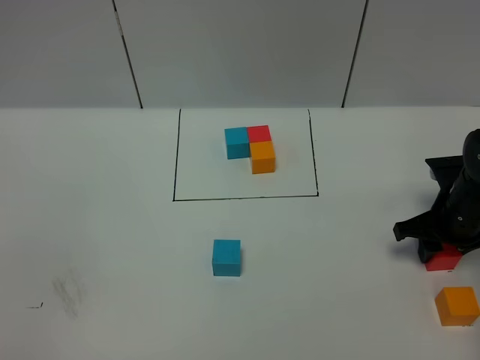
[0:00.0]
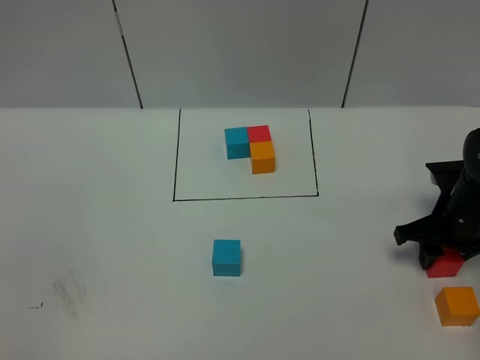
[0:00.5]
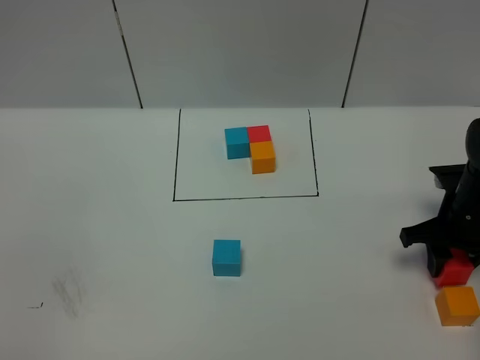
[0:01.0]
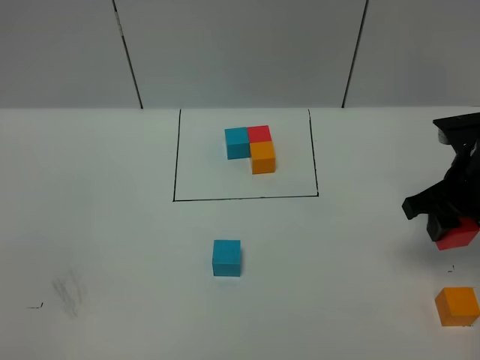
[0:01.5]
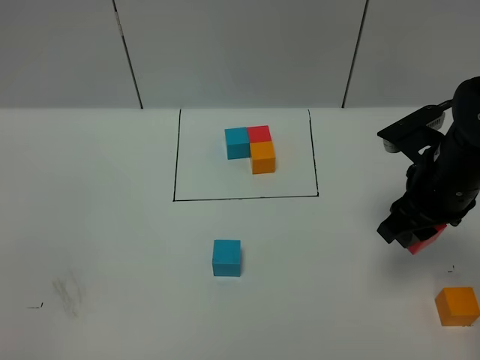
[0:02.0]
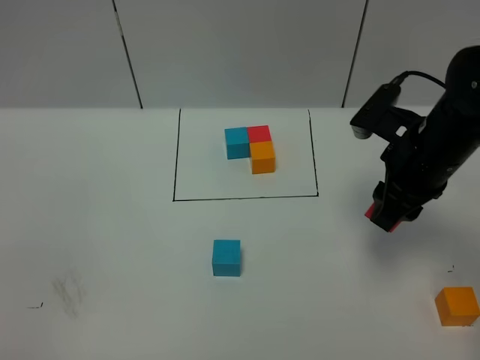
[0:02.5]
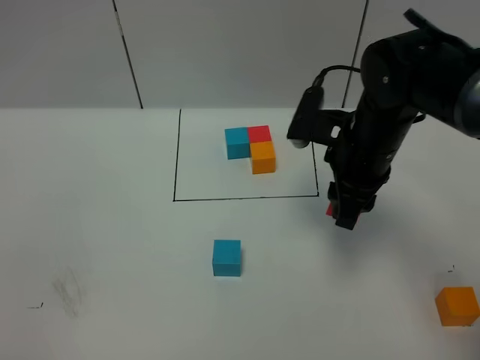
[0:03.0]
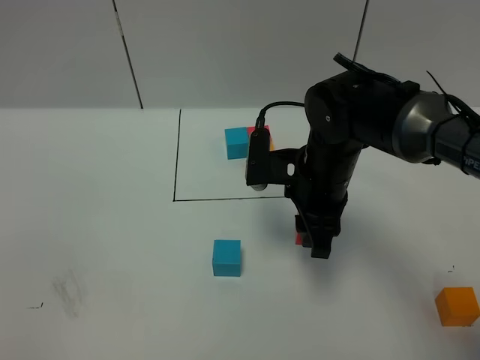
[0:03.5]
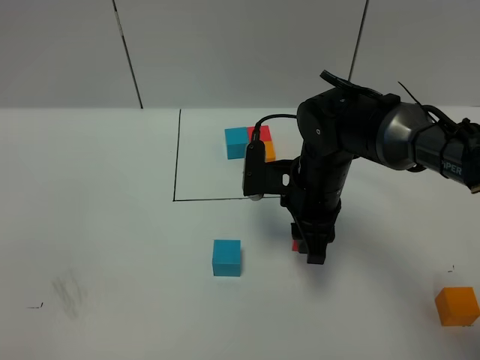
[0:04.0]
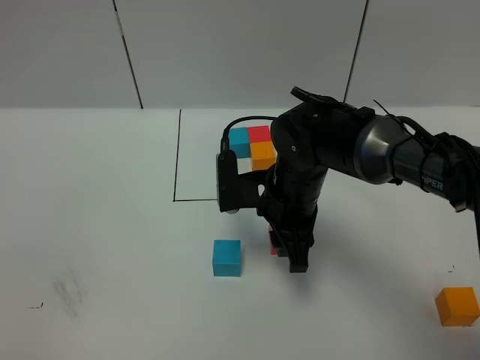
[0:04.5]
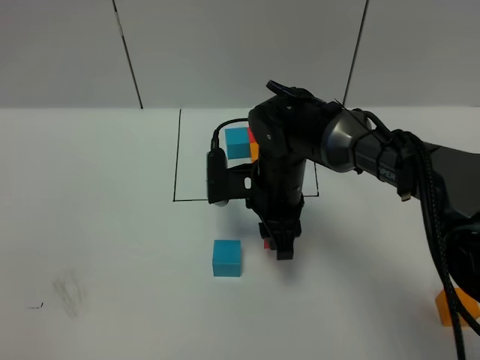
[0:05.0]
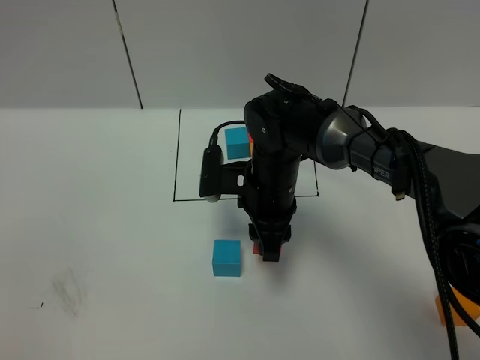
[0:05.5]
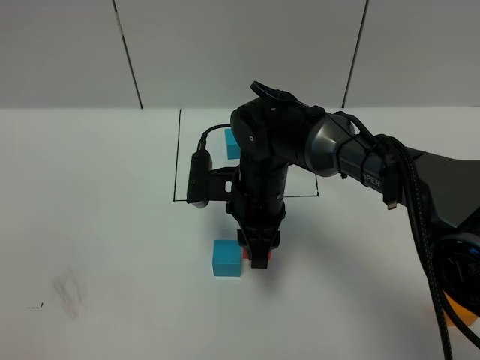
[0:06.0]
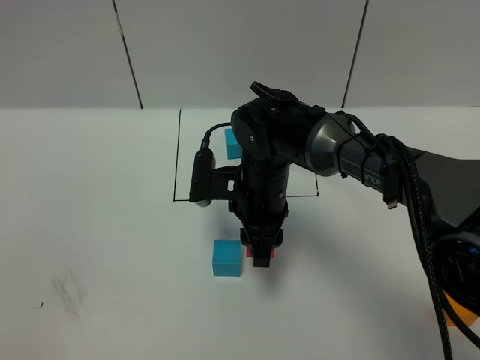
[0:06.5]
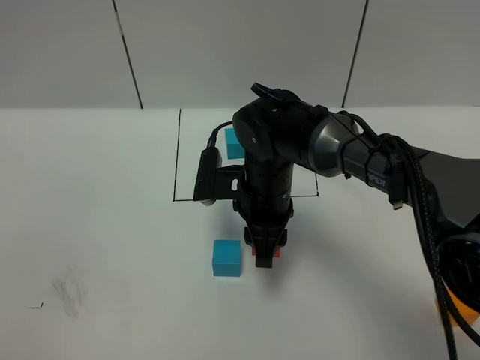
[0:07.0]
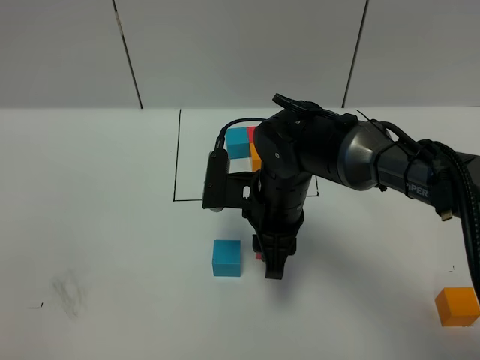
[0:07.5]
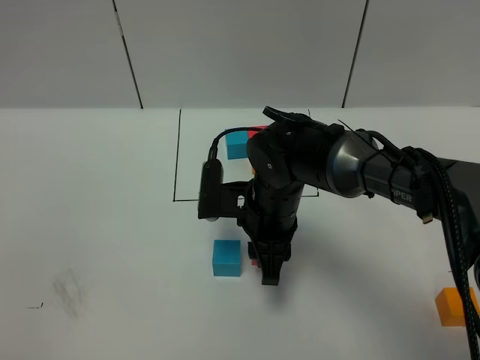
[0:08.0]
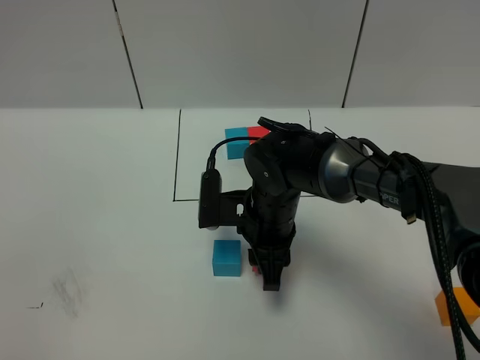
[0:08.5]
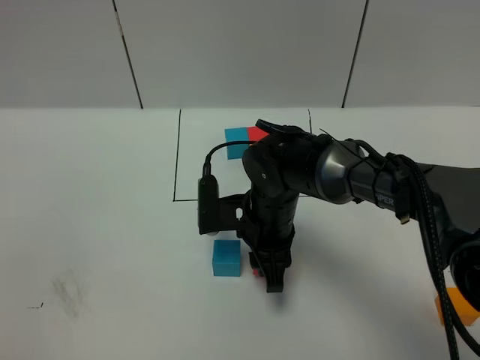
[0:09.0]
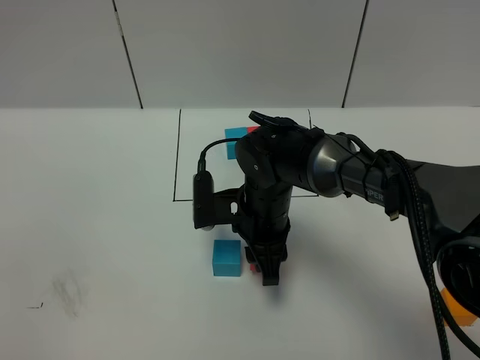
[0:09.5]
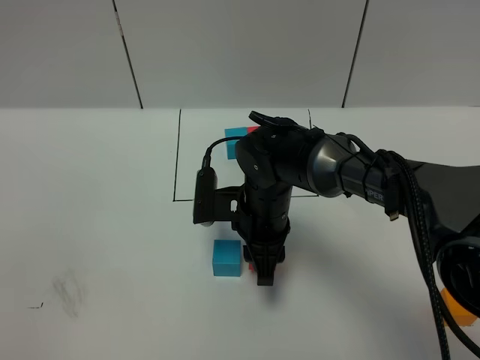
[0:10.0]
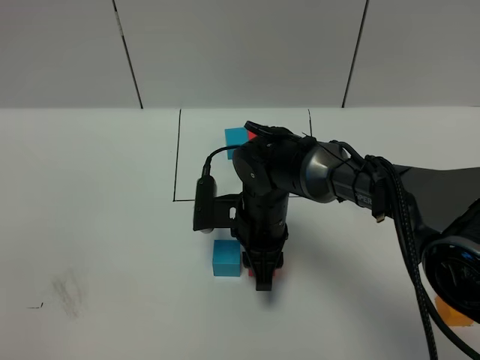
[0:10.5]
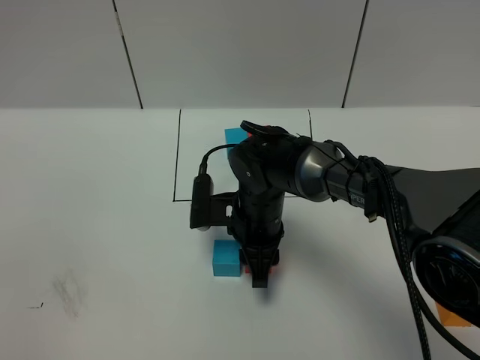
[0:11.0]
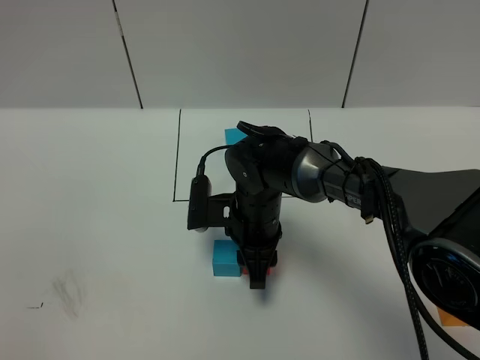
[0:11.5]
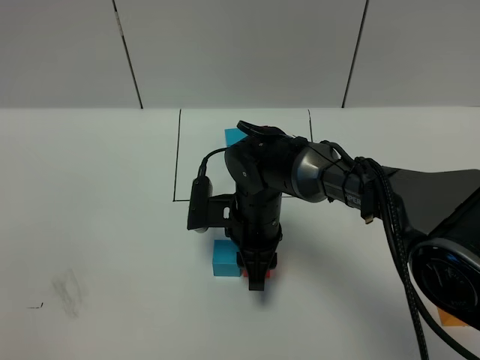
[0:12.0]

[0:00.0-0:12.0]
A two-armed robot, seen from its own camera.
Task of the whole recording: According to the building block template in front, assemble the scattered blocks together.
0:00.0 to 0:02.0: The right gripper is displaced upward and to the left by roughly 15 cm.
0:02.0 to 0:04.0: The right gripper goes some 15 cm to the left and downward.
0:04.0 to 0:06.0: The right gripper is displaced to the left by approximately 5 cm.
0:06.0 to 0:12.0: The grippers move only a little.

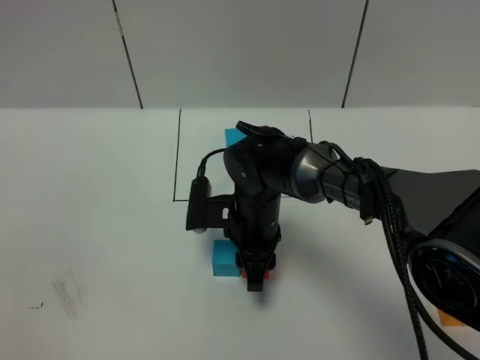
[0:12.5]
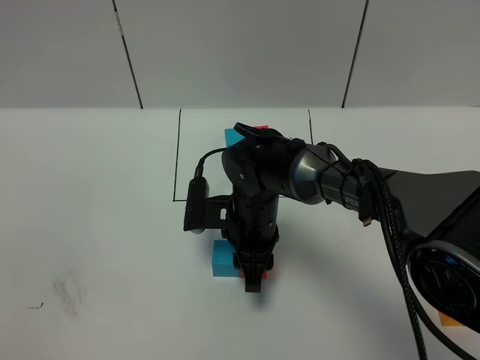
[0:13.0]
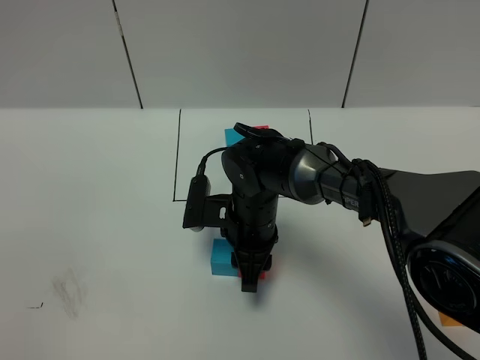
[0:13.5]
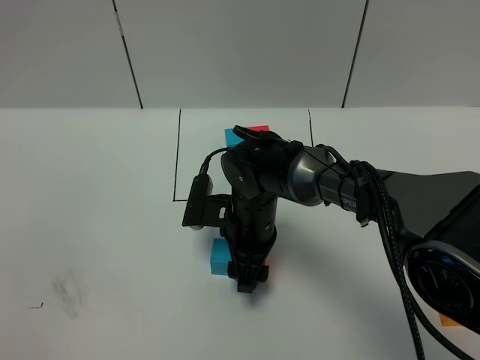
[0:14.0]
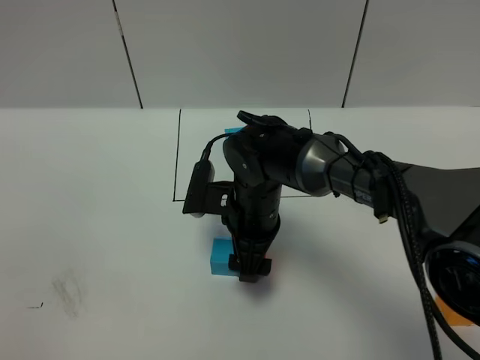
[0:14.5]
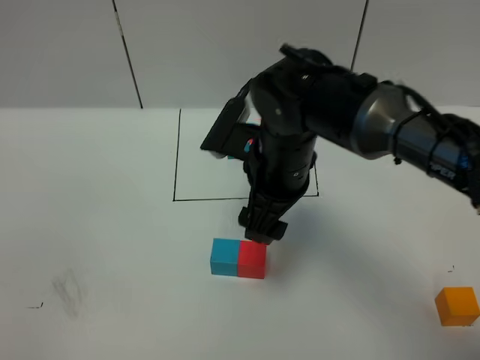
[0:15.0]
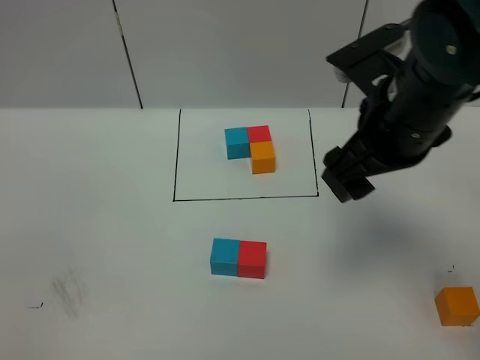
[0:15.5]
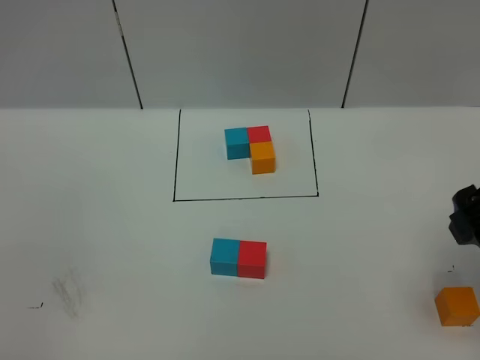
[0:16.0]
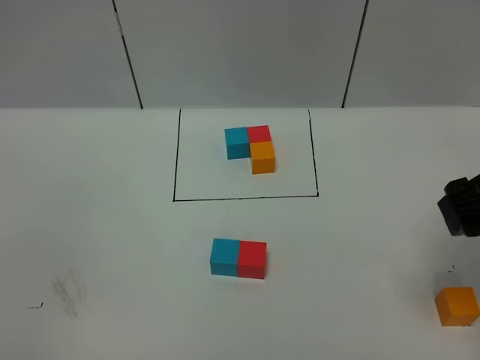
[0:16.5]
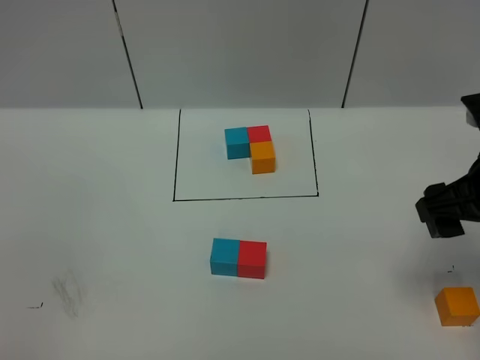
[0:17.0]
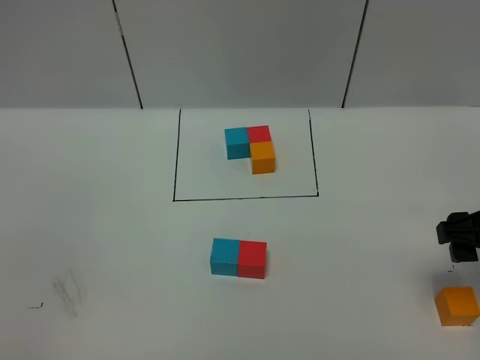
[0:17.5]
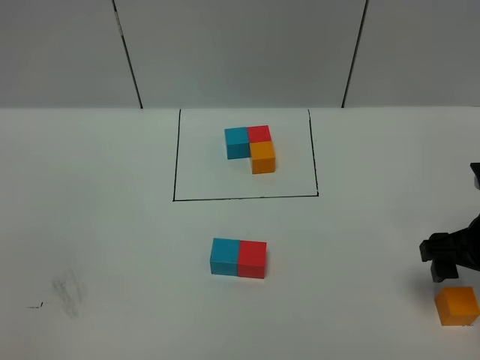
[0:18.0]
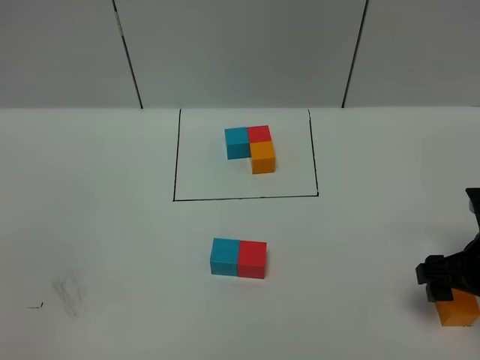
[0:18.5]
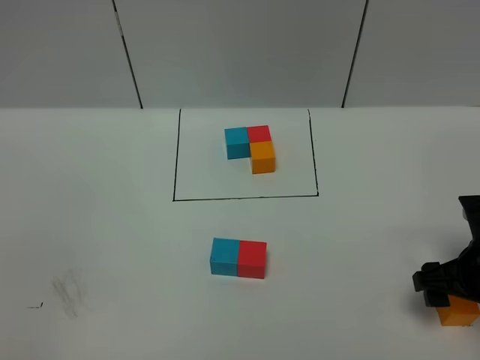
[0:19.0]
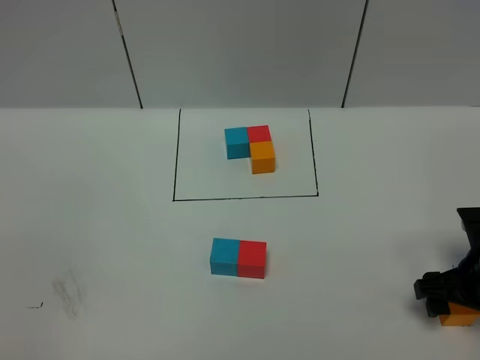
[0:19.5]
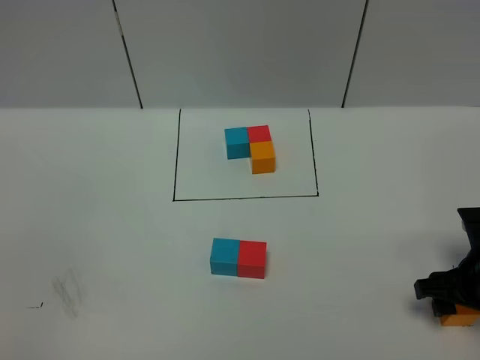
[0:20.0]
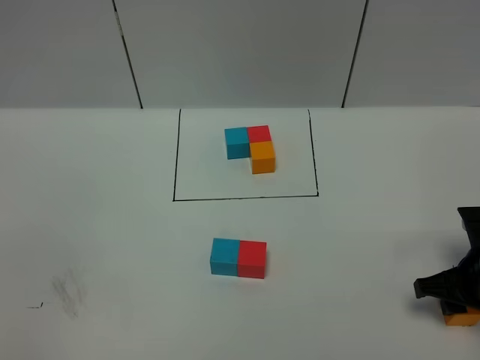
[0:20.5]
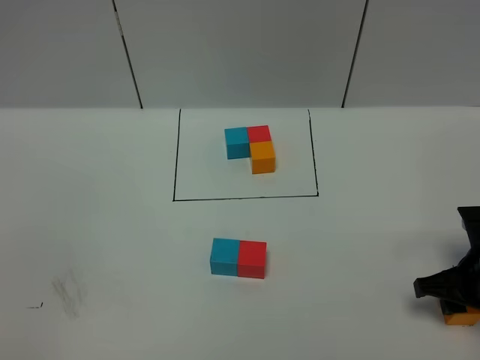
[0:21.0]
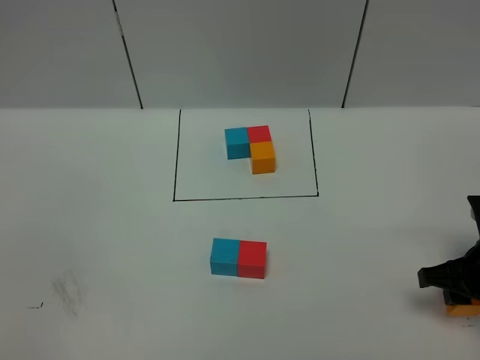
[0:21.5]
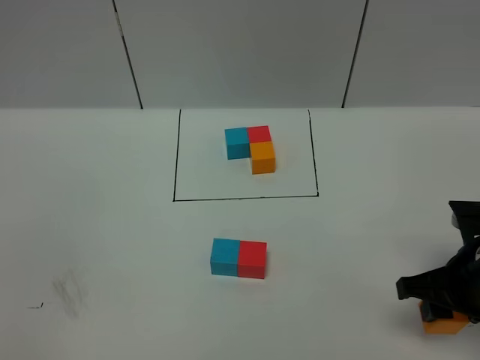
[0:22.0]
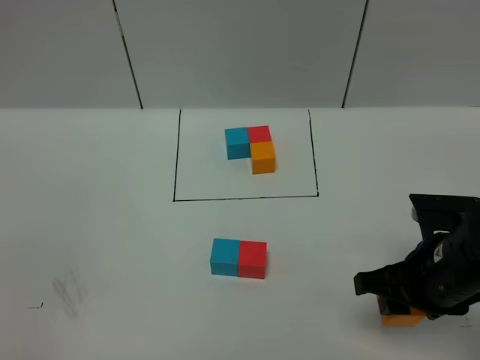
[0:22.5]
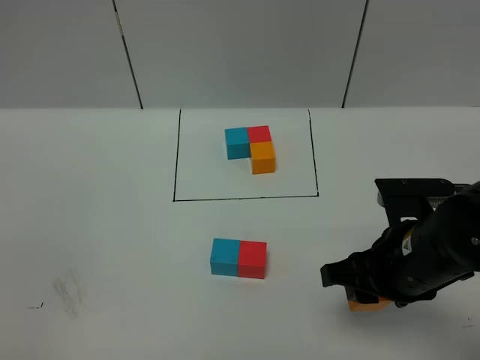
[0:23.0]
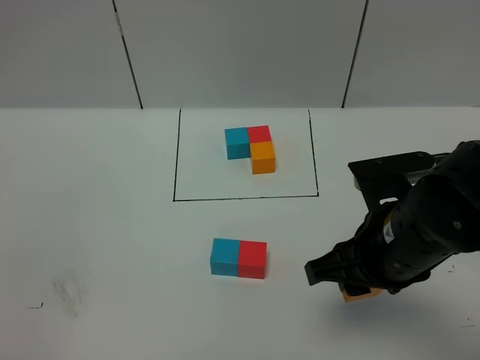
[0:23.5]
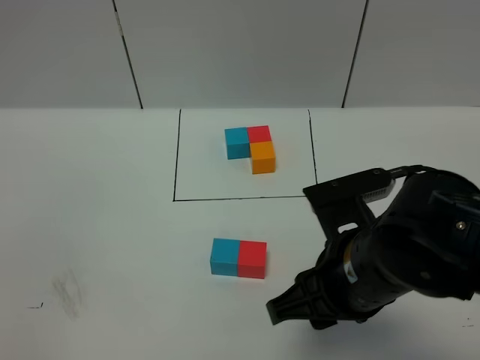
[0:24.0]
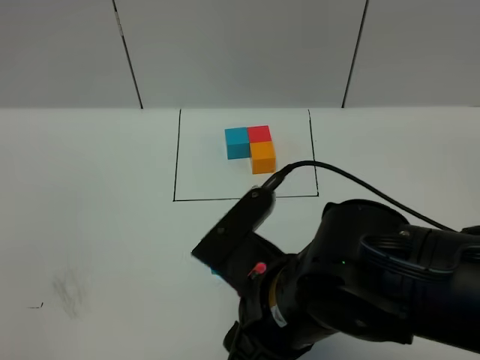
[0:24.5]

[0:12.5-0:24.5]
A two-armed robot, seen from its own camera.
Task of the whole recording: According to the building block template in front, assemble the scattered blocks together.
Step, 0:12.5 to 0:14.5: Put the red cube on the right of the blue cube.
0:12.5 to 0:14.5: The right gripper opens its fingers.
0:14.5 to 0:16.5: The right gripper is displaced to the right, upward and backward by about 30 cm.
0:16.5 to 0:18.5: The right gripper travels downward by roughly 15 cm.
0:18.5 to 0:20.5: The right gripper closes.
0:20.5 to 0:22.5: The right gripper travels to the left and upward by roughly 10 cm.
0:22.5 to 0:24.5: The right gripper moves to the left, backward and upward, some 20 cm.

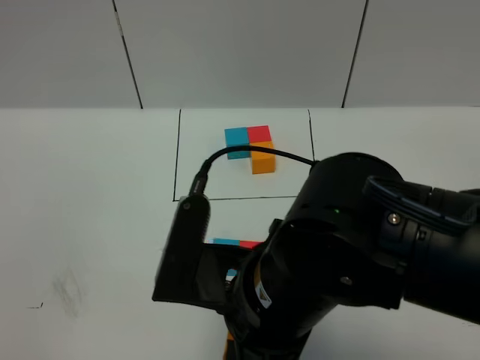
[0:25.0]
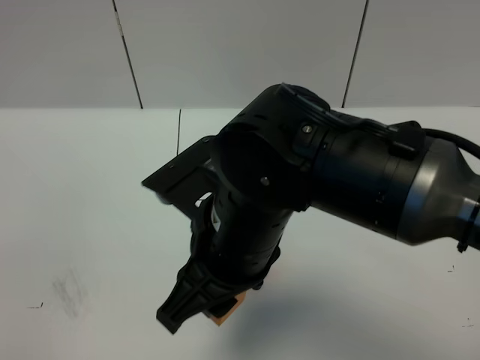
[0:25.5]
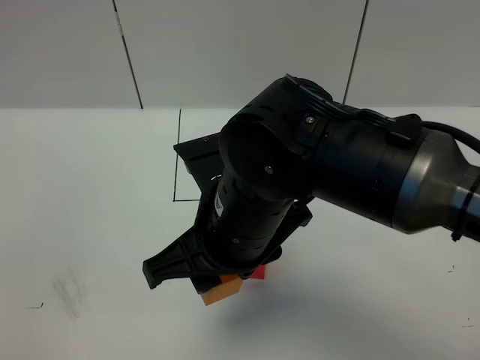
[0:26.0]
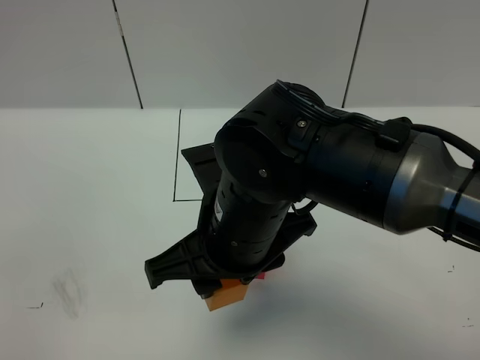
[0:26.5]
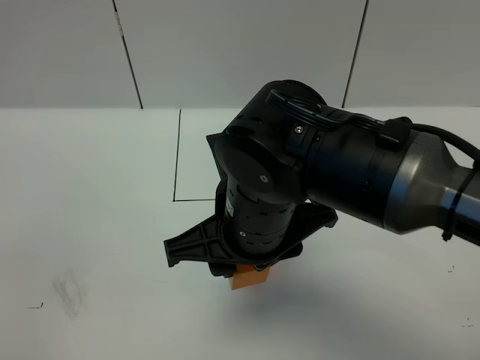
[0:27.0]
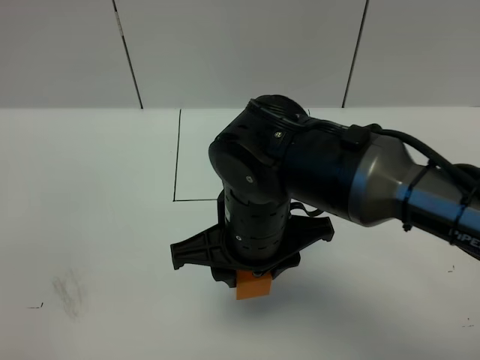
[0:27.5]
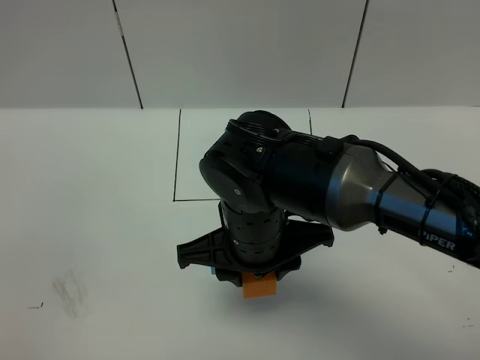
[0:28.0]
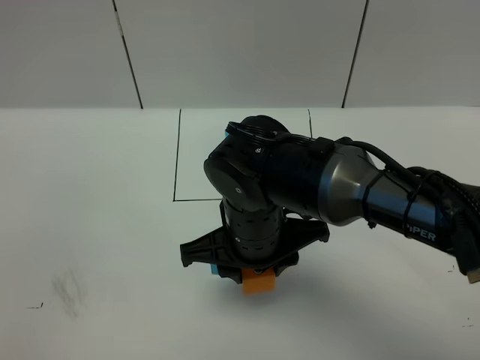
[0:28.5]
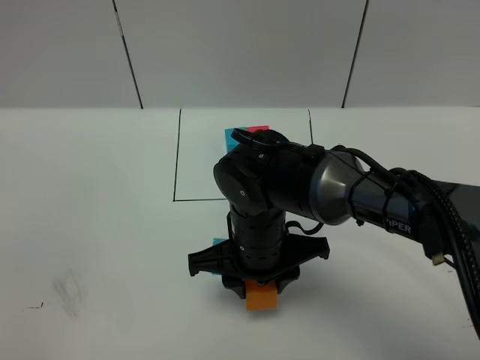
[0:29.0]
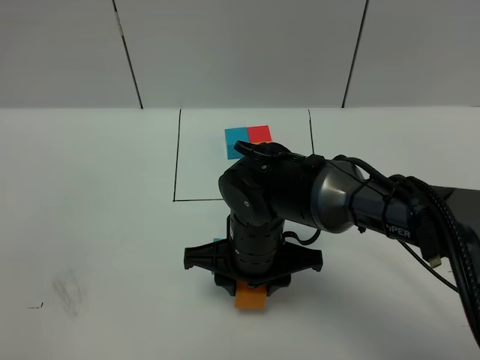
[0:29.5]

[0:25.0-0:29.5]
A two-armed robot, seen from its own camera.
Task of the whole recording: According to the building block template in front, assemble the scattered blocks together.
0:25.0 to 0:27.0: The right gripper heads forward, covering roughly 10 cm.
0:27.0 to 0:29.5: The right gripper goes approximately 15 cm downward and forward.
